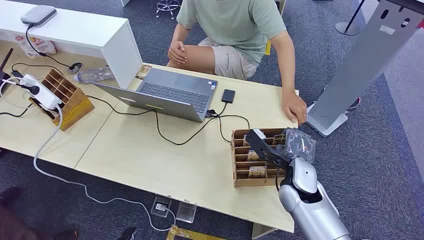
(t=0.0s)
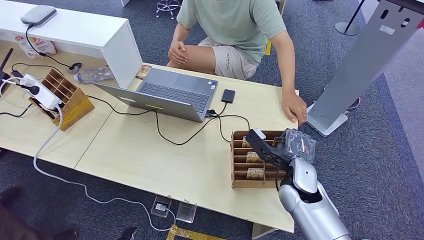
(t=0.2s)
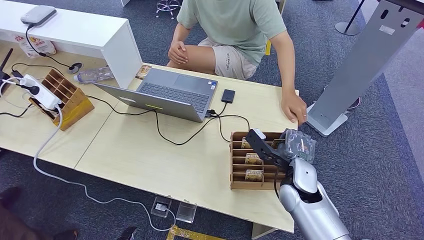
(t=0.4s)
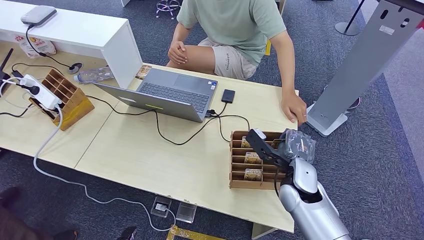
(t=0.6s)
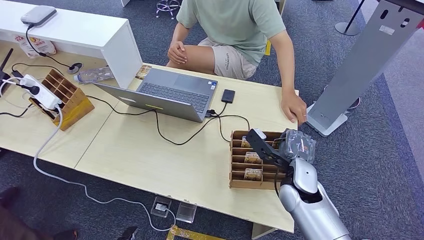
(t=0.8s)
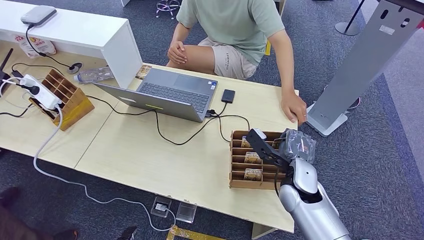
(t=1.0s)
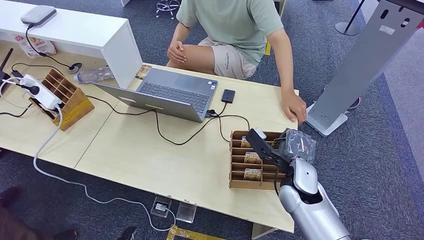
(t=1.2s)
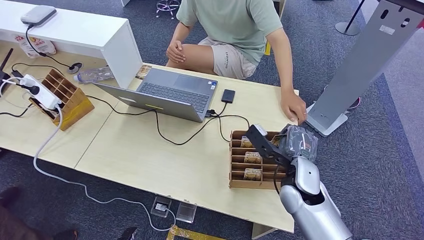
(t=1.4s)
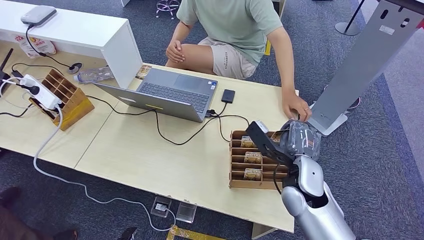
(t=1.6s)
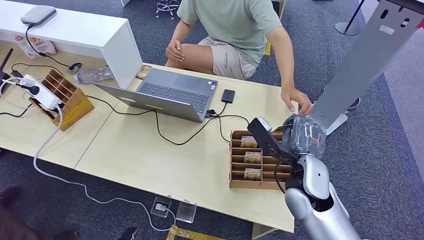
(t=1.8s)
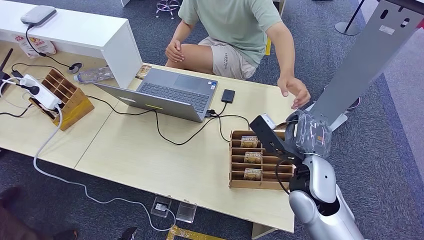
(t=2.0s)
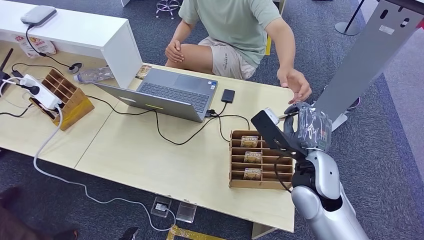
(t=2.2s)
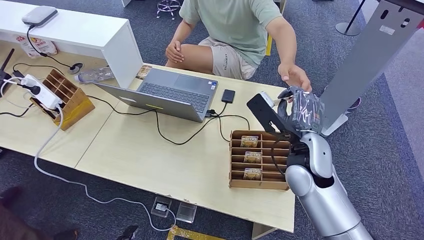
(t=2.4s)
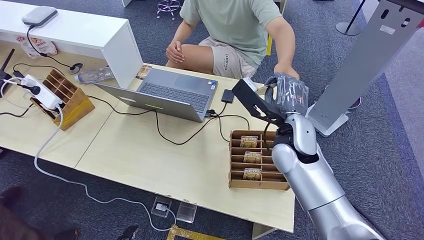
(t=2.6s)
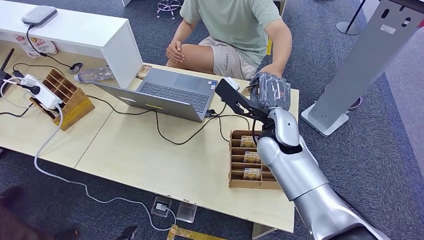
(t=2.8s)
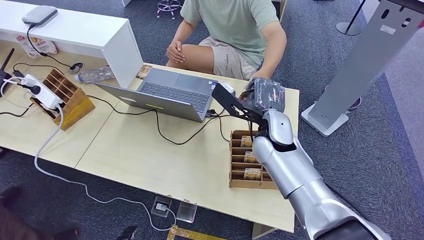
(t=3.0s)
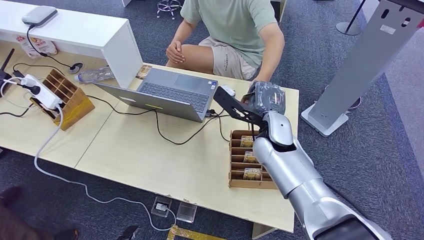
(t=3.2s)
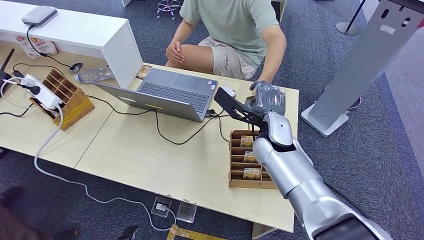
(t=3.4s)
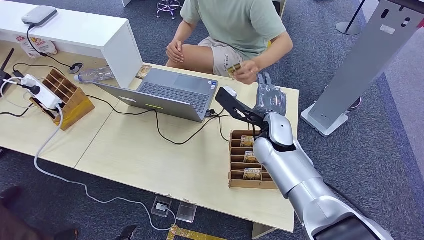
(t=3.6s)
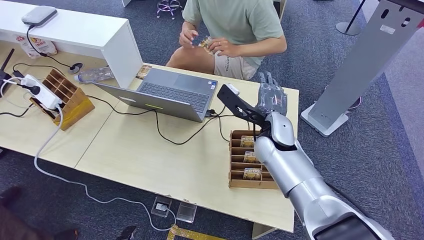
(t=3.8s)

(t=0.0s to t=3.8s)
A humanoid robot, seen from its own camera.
Step, t=0.0s - t=1.8s: Pick up the key card from the card box.
Step, t=2.8s - t=3.8s: Hand the key card to the target.
t=1.2s - t=2.6s: The right hand goes roughly 10 cm upward.
t=2.6s - t=3.8s: The hands move only a little.
